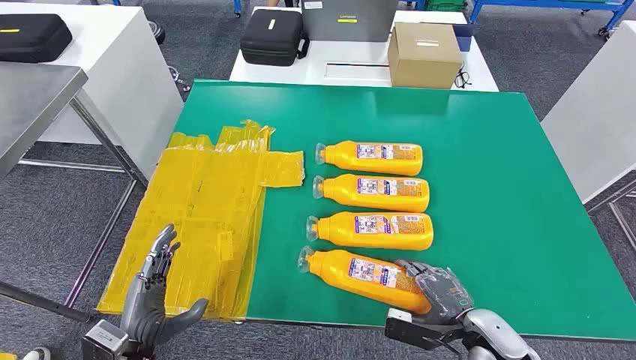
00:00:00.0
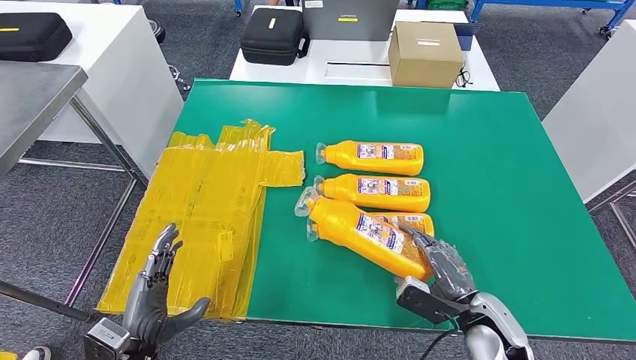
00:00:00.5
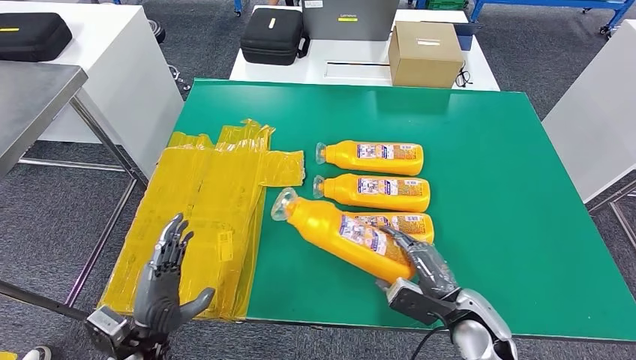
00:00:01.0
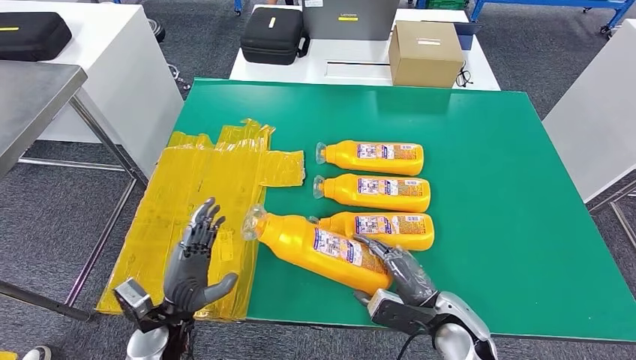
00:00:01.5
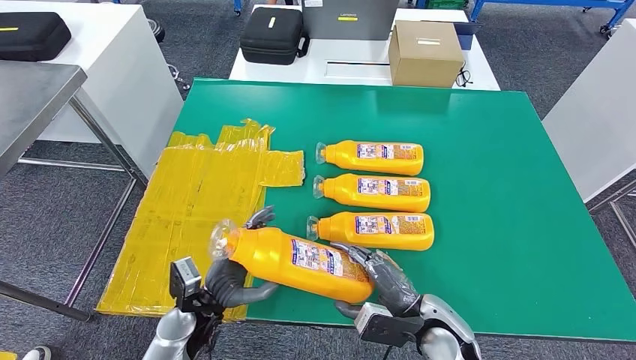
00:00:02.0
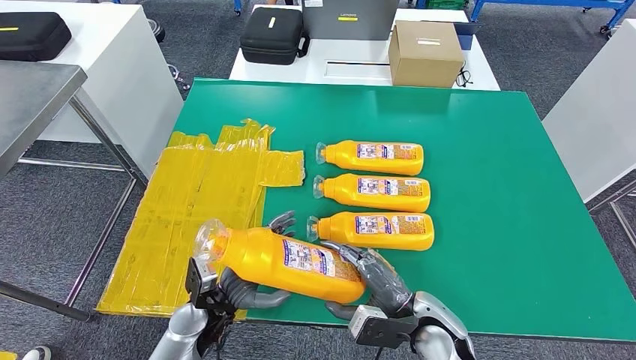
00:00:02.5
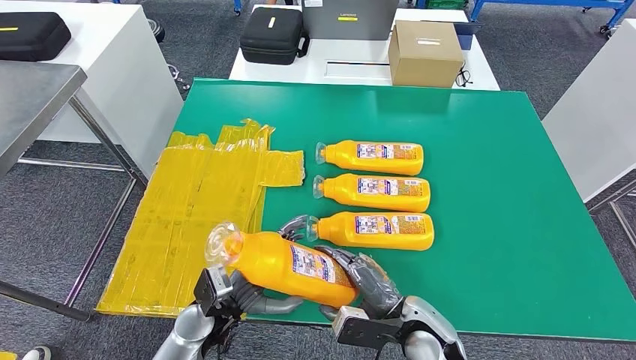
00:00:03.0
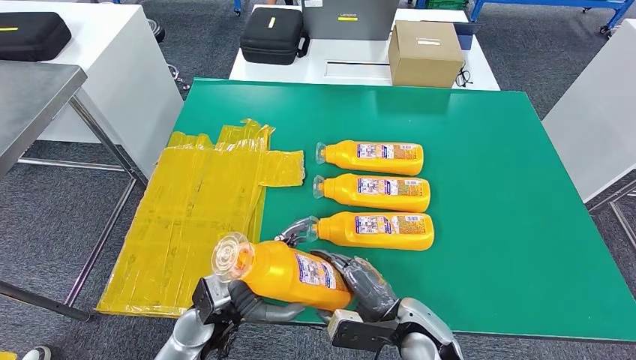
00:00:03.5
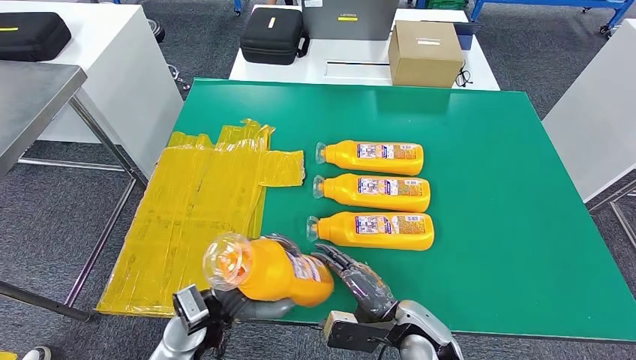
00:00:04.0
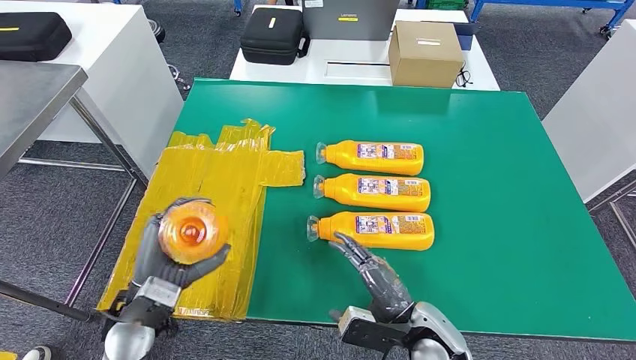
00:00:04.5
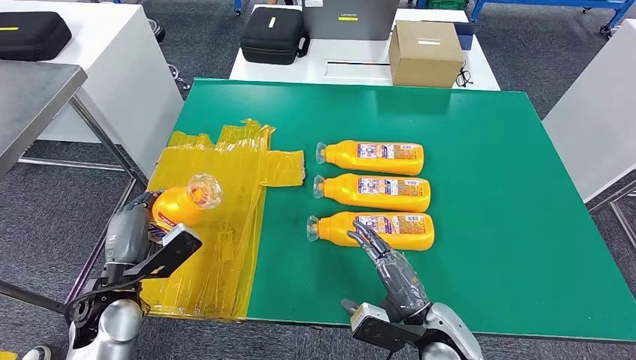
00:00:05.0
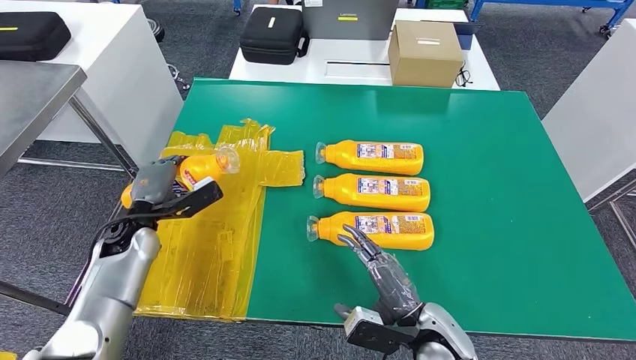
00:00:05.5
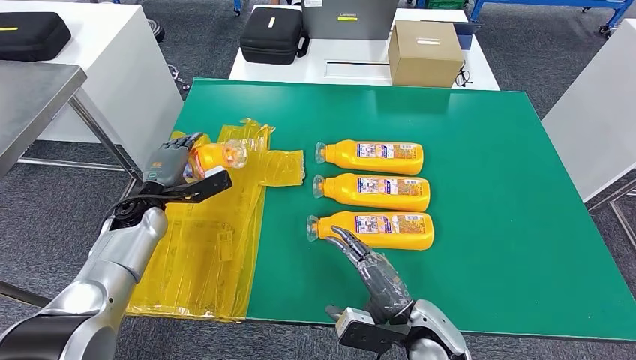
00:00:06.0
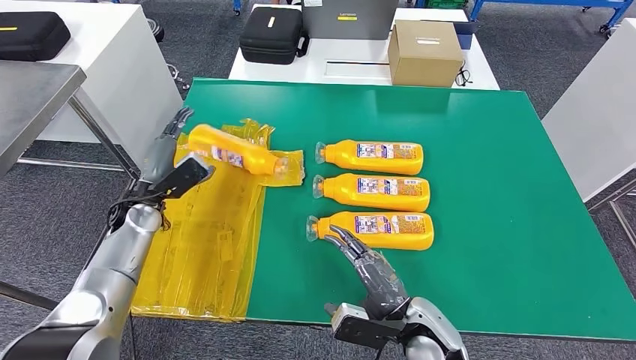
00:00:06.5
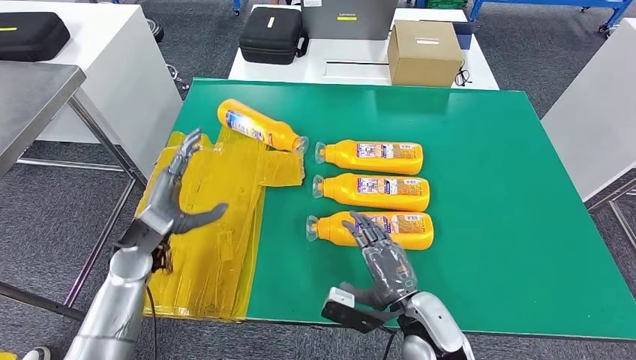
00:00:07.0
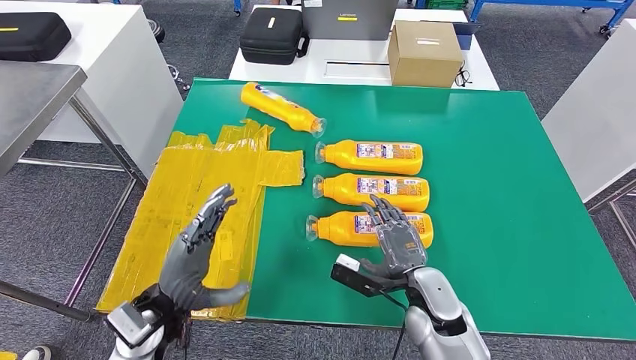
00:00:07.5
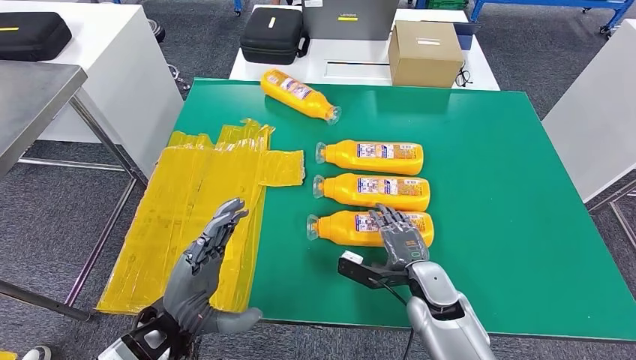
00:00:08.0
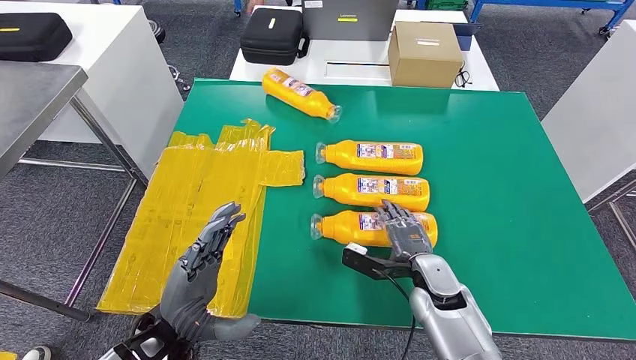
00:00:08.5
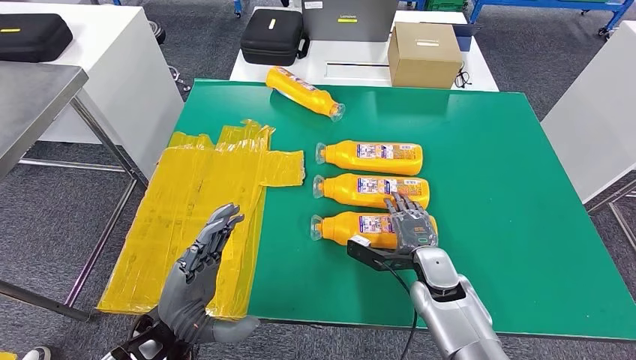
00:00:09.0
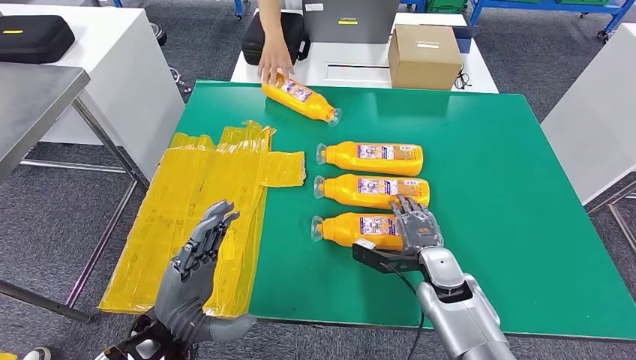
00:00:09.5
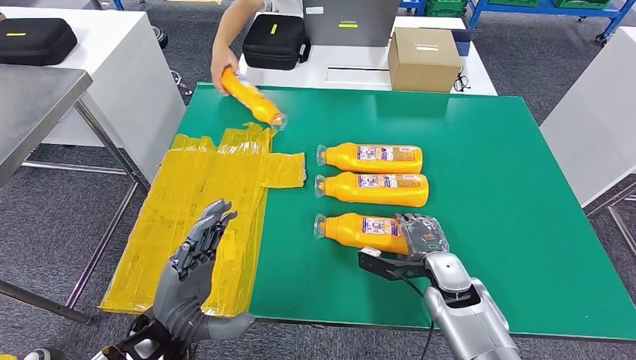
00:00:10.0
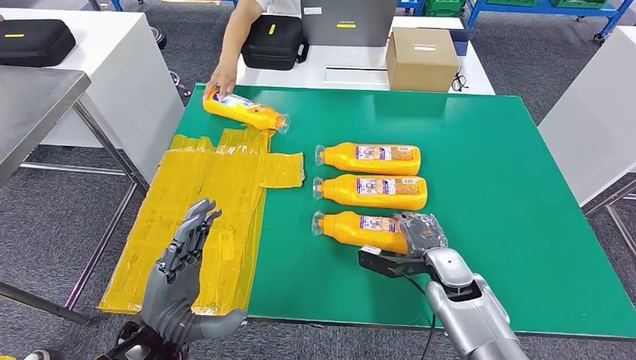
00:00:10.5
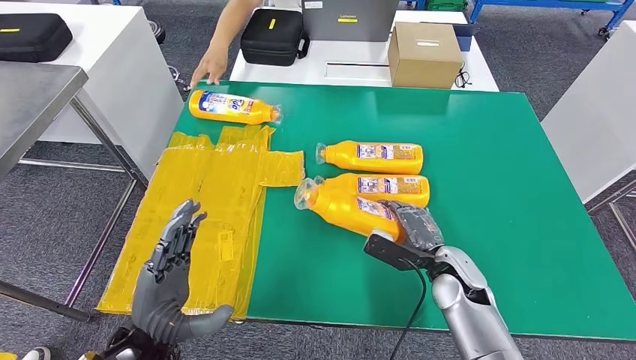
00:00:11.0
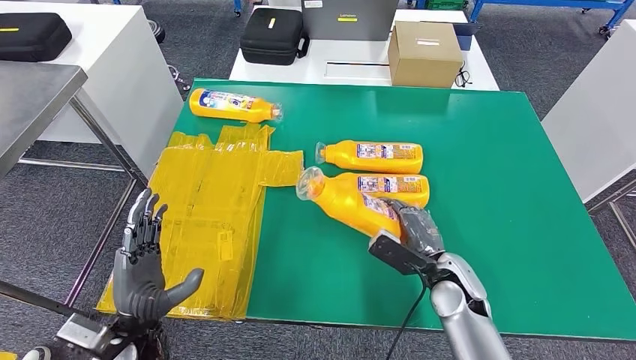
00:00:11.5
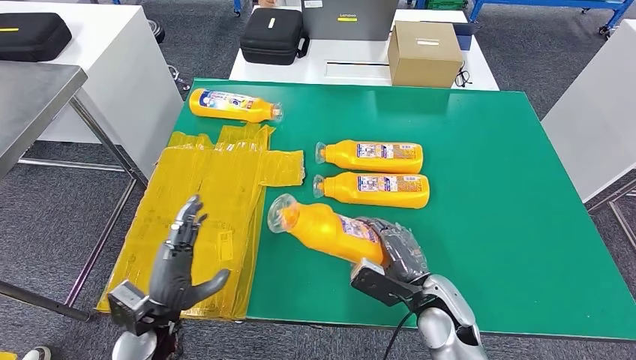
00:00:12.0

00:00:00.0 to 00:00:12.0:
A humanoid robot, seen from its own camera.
Step, 00:00:00.0 to 00:00:03.0: Take the bottle from the table.
Step, 00:00:03.5 to 00:00:07.5: Flip the bottle to face forward.
00:00:02.0 to 00:00:04.0: The hands move only a little.
00:00:04.0 to 00:00:06.0: The left hand travels forward and to the left by roughly 25 cm.
00:00:06.0 to 00:00:08.0: The right hand travels forward by about 10 cm. Meanwhile the left hand moves backward and to the right, approximately 25 cm.

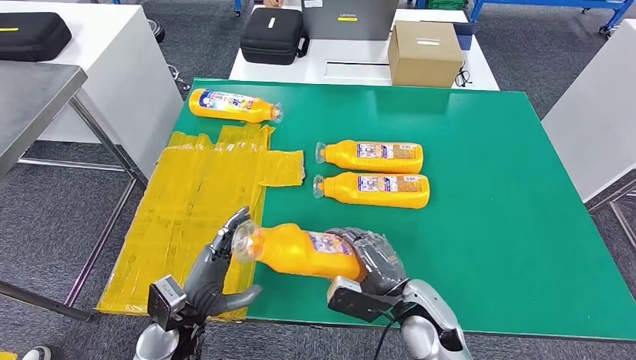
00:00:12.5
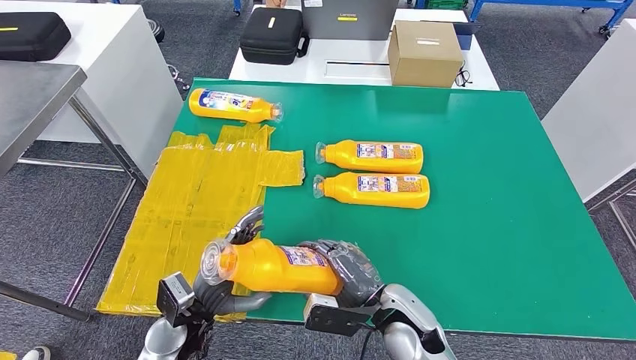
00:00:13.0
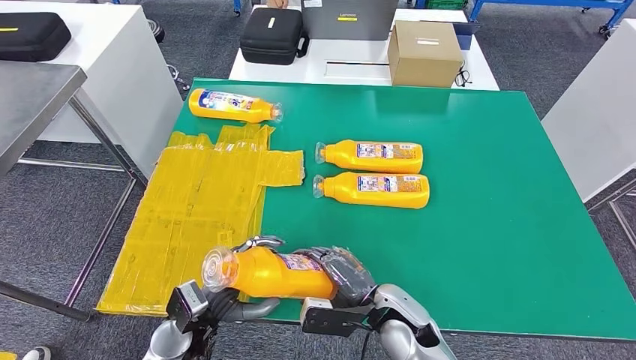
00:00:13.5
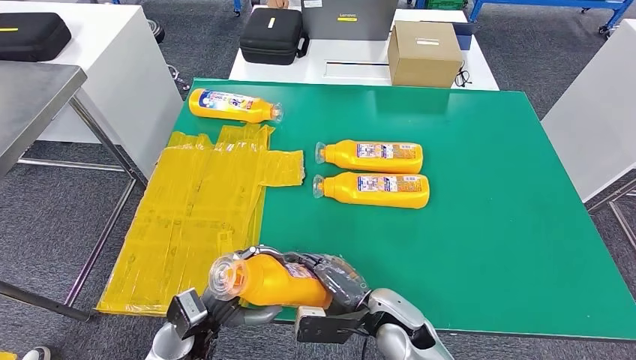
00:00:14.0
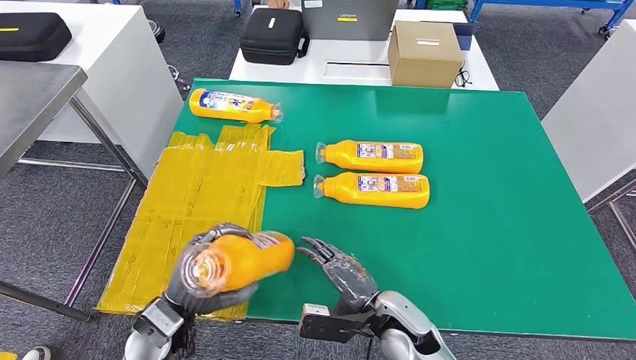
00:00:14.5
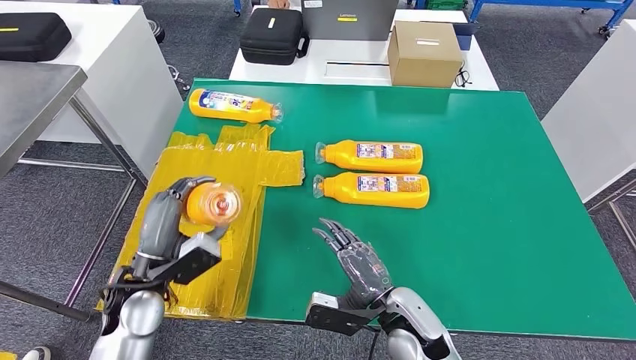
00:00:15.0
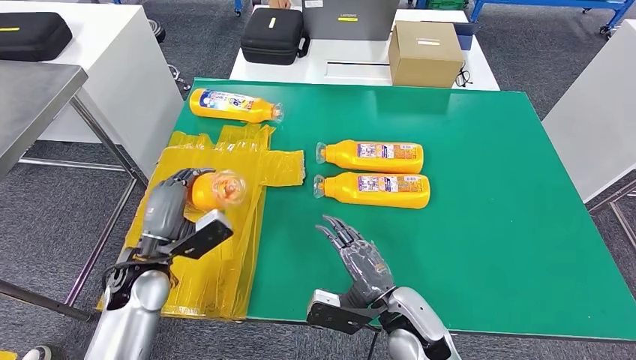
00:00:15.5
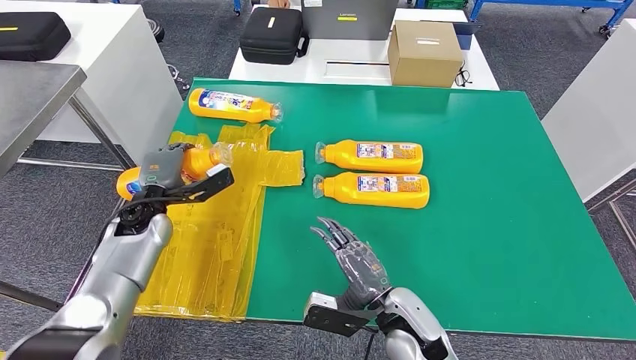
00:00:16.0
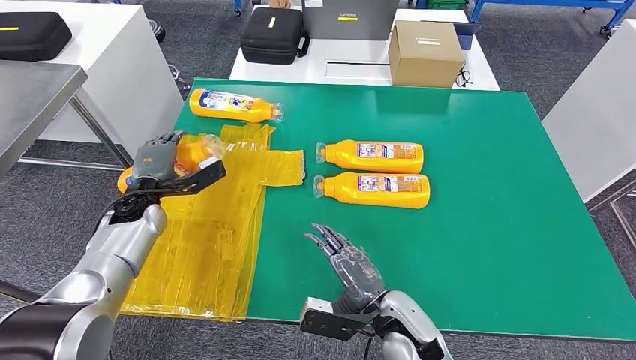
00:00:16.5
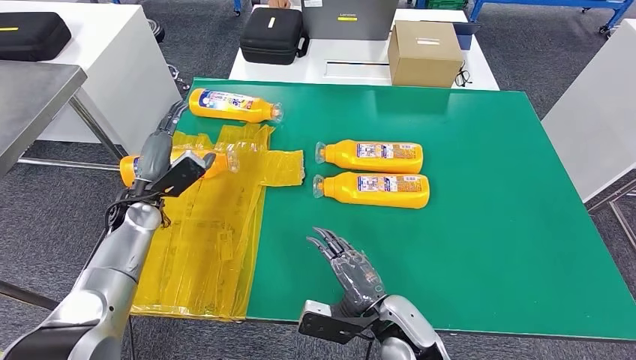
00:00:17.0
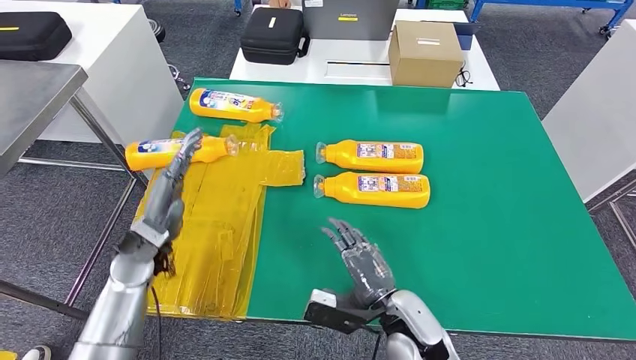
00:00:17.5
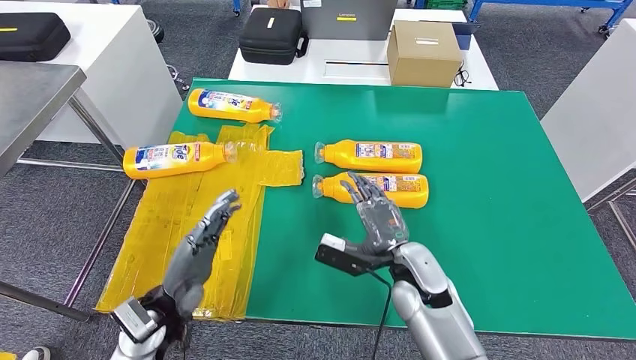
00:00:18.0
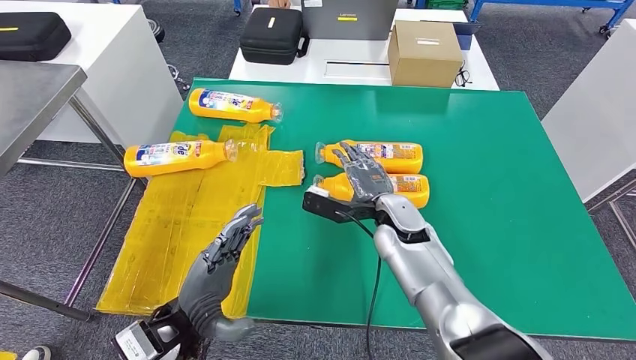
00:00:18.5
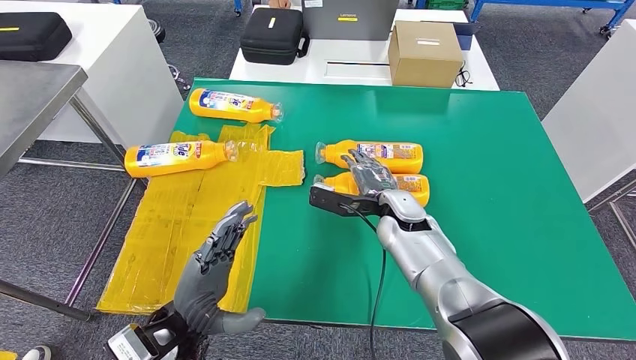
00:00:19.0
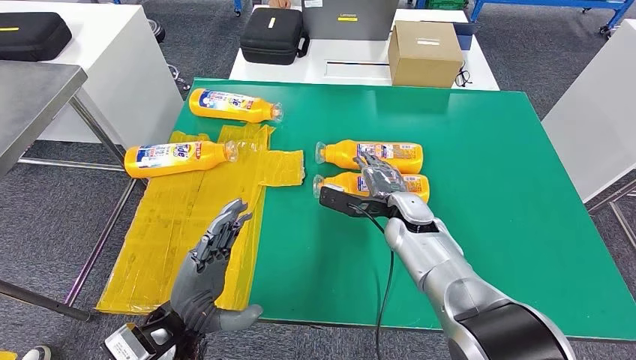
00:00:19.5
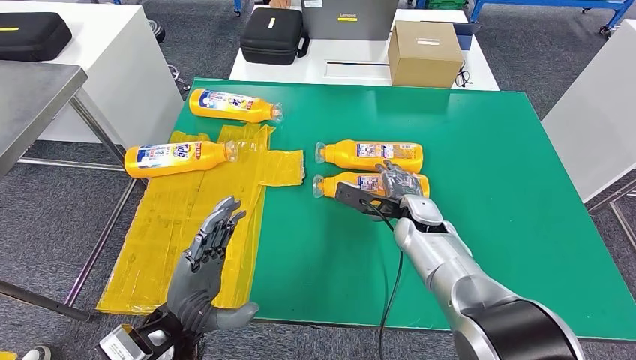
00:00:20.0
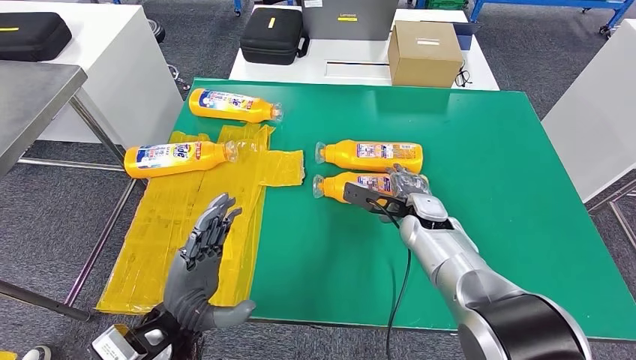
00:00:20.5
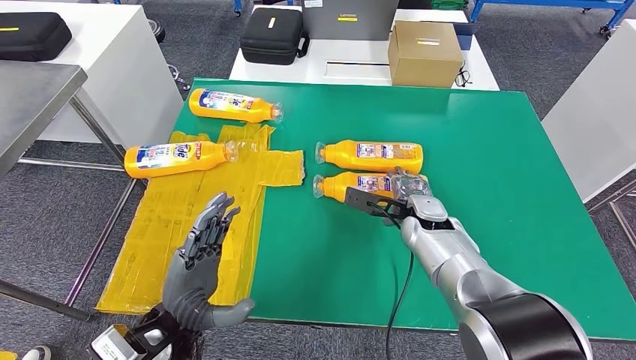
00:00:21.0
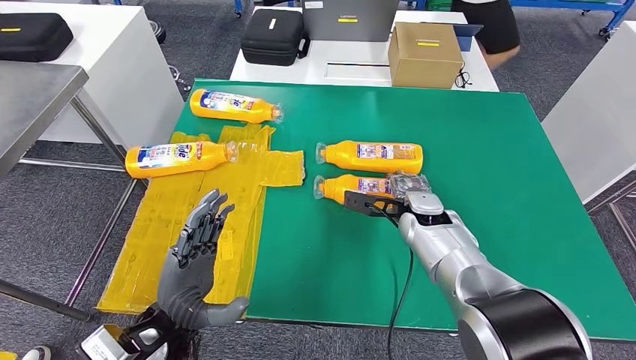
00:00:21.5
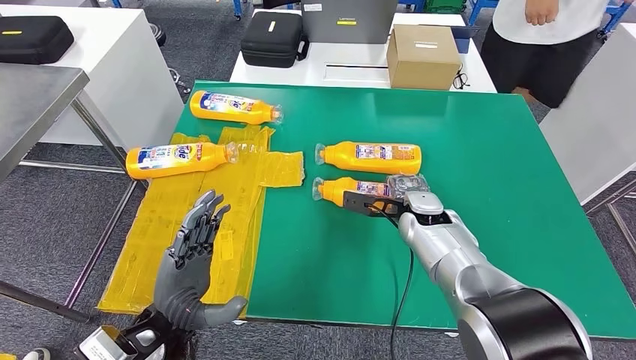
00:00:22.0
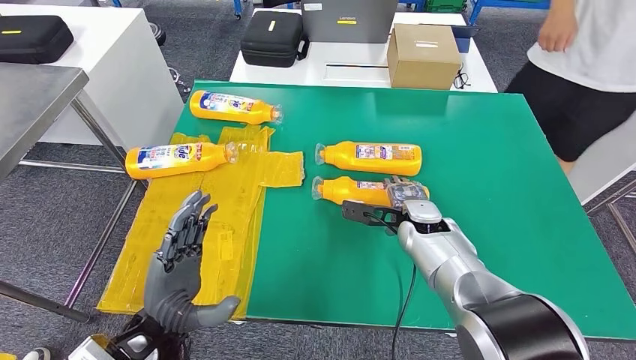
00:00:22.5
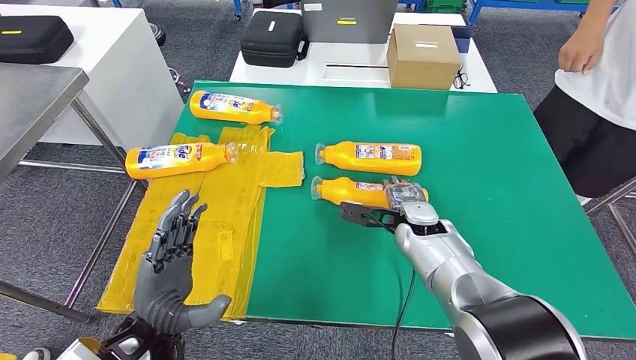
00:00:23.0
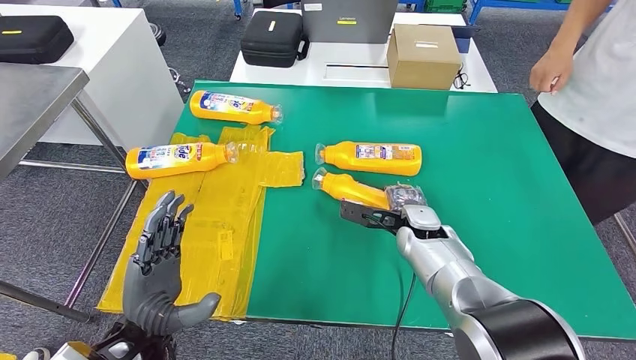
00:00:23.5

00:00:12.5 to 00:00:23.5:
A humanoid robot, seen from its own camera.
Step, 00:00:13.0 to 00:00:17.0: Flip the bottle to face forward.
00:00:12.5 to 00:00:14.5: There are only small adjustments of the hands.
00:00:14.5 to 00:00:16.0: The left hand goes some 20 cm forward and to the left.
00:00:16.0 to 00:00:18.0: The left hand travels backward and to the right by about 20 cm, while the right hand moves forward, some 10 cm.
00:00:18.0 to 00:00:20.0: The right hand goes about 10 cm forward.
